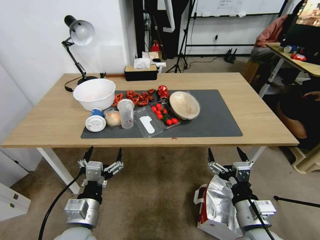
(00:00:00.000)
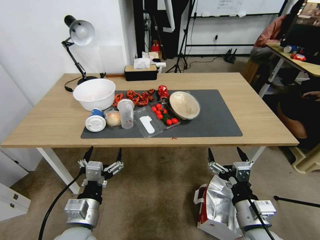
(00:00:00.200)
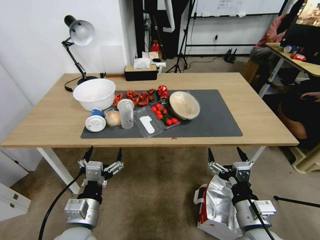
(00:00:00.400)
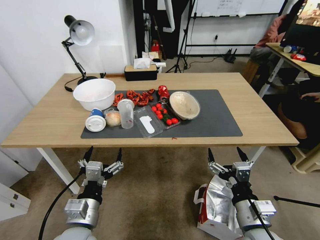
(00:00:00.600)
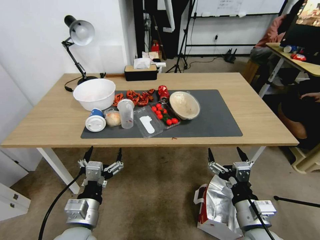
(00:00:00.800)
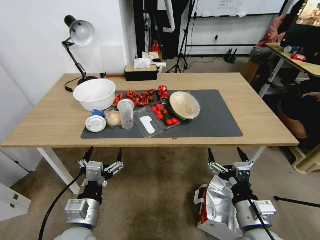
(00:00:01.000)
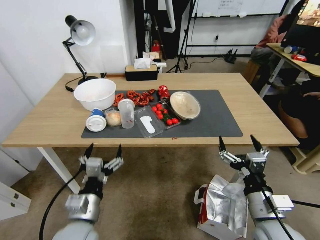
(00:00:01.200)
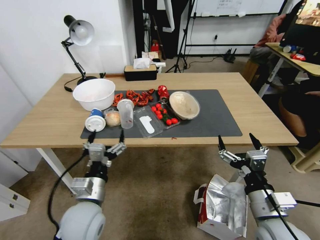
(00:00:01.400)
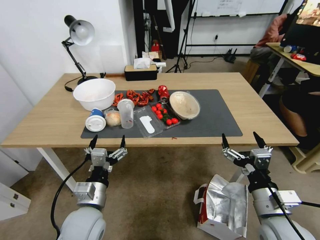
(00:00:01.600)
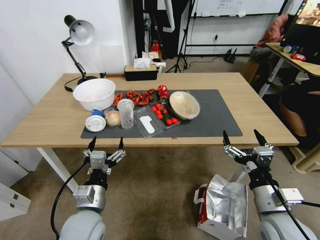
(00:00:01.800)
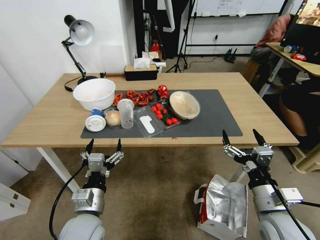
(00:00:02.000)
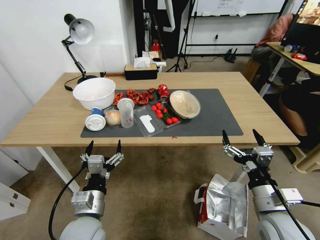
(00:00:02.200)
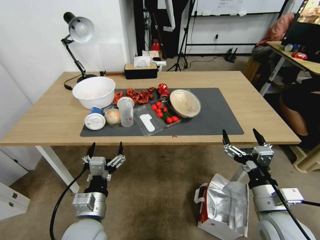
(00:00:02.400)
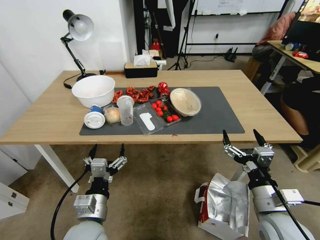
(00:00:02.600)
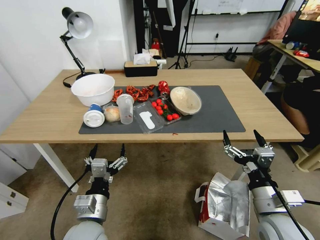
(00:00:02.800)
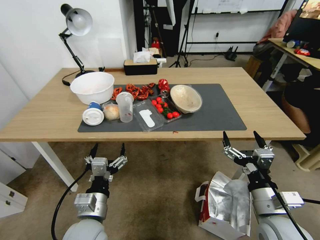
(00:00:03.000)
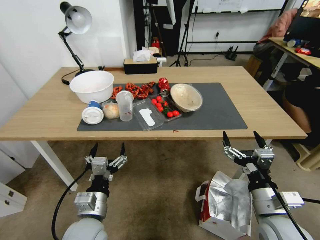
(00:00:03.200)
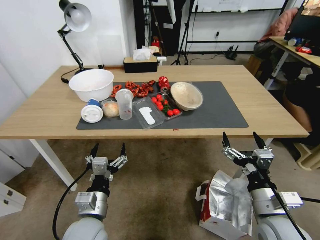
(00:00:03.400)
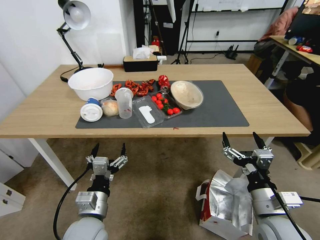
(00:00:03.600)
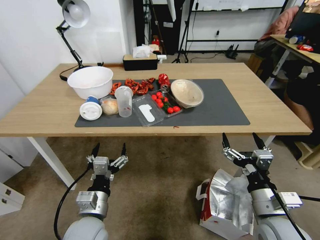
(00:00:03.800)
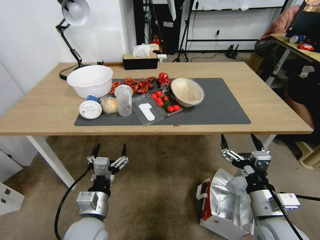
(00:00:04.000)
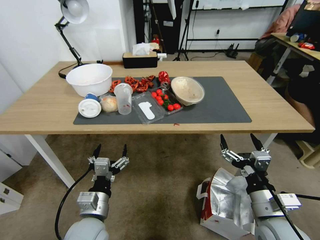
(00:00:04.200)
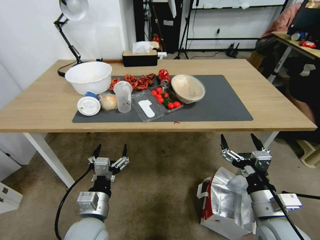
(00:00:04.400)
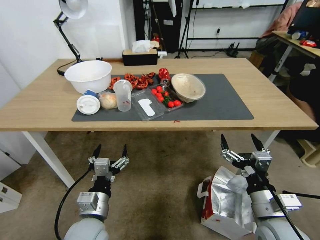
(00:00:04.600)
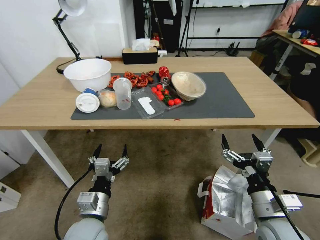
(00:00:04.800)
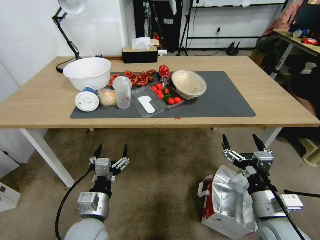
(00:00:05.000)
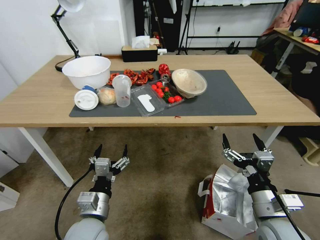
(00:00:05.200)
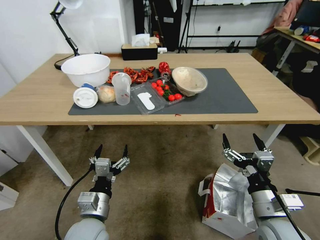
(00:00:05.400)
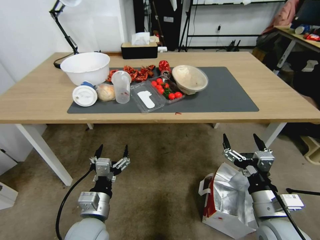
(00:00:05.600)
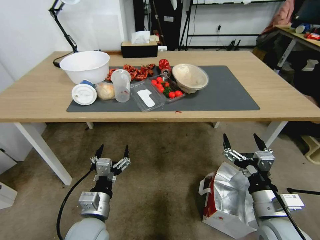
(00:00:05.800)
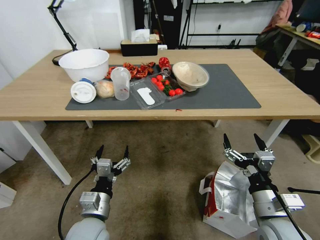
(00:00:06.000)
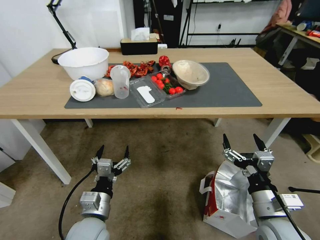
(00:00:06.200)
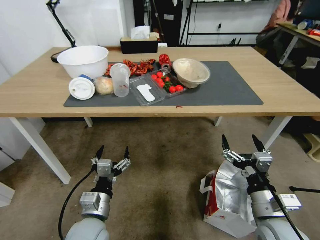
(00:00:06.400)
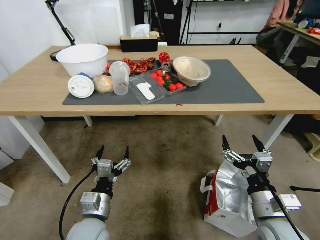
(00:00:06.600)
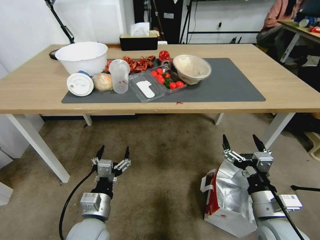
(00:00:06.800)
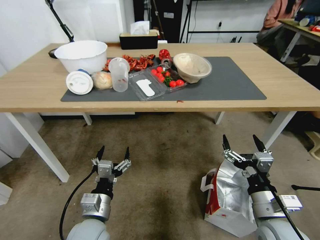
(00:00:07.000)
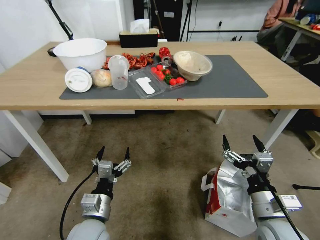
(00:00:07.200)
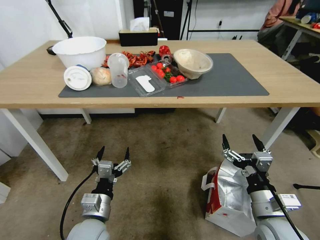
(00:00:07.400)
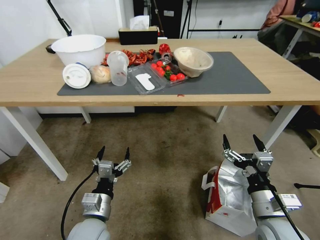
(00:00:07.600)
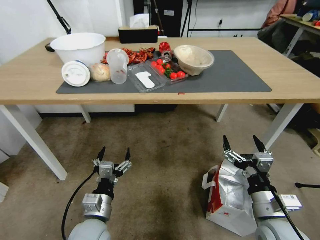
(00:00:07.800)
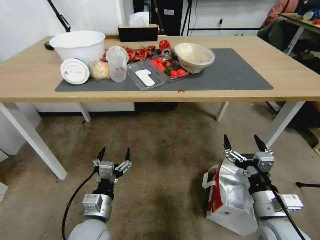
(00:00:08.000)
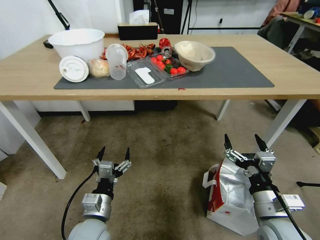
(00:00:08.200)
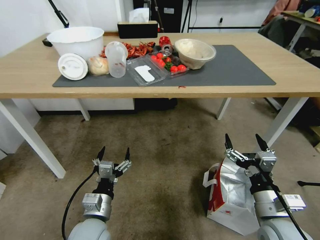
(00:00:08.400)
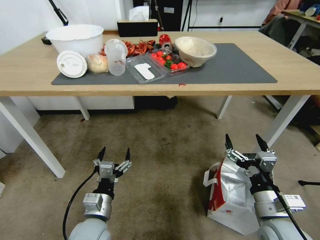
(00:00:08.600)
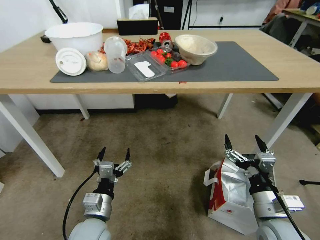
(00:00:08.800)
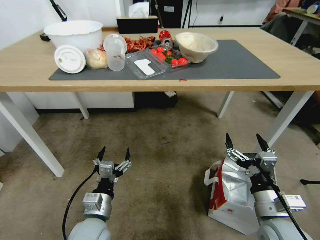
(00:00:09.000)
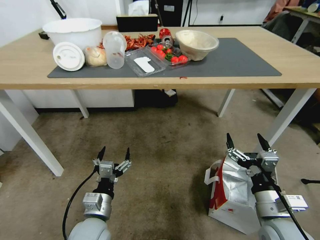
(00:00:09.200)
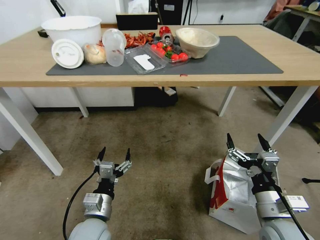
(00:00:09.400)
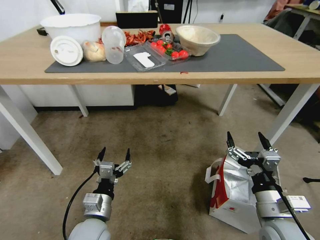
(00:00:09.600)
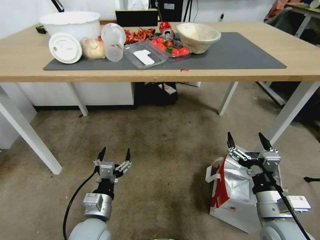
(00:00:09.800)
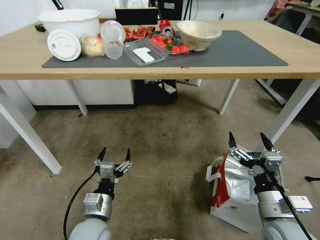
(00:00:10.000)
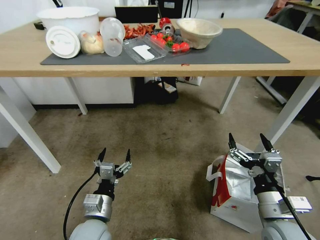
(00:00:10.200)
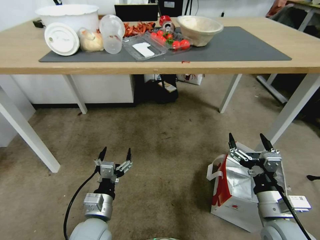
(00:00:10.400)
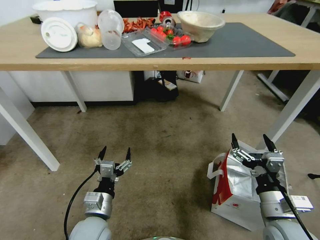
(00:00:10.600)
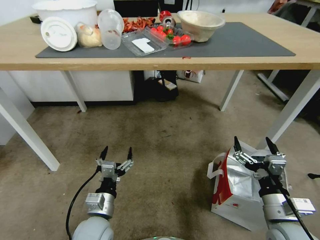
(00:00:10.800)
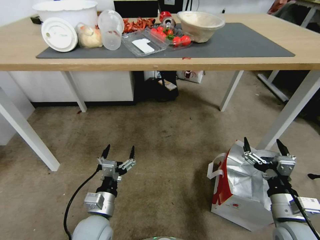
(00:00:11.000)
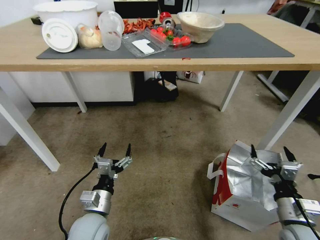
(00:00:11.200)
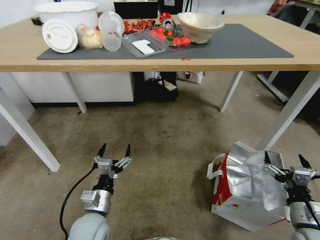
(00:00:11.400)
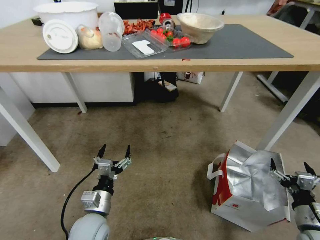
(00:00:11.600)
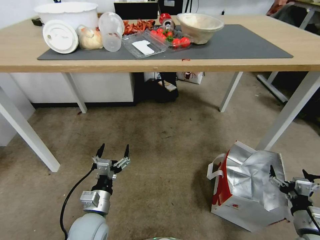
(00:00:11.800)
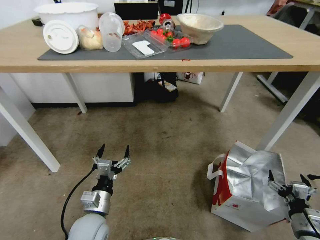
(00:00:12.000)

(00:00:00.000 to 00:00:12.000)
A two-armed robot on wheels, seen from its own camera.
Task of the whole recording: Pick up the food delivery bag from the floor and place it on the table.
00:00:10.400 - 00:00:12.000: The right gripper is displaced to the right and downward by some 20 cm.

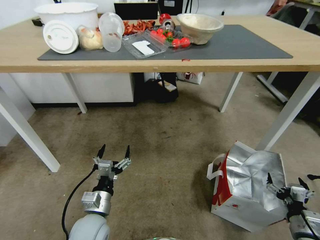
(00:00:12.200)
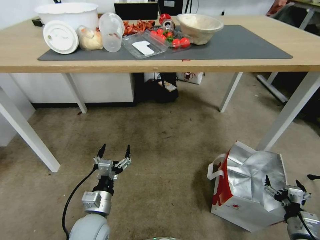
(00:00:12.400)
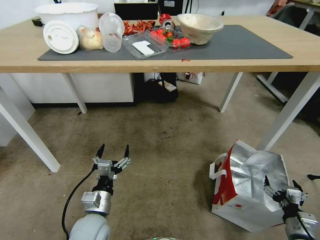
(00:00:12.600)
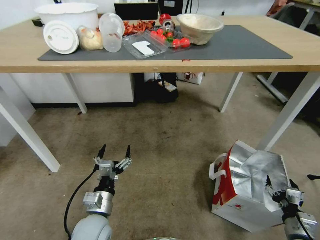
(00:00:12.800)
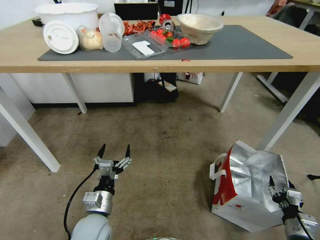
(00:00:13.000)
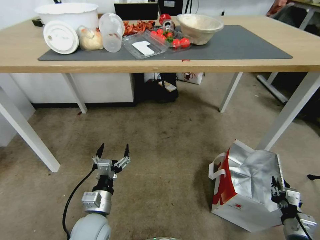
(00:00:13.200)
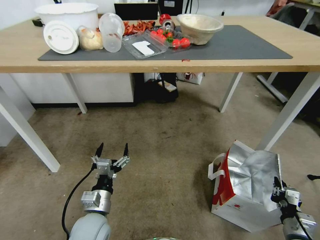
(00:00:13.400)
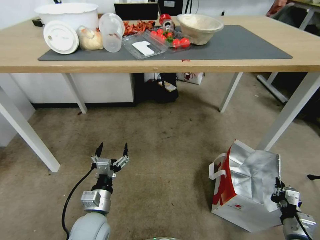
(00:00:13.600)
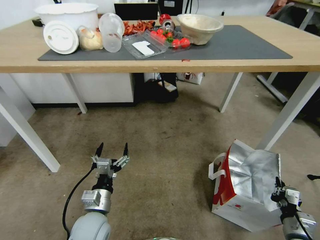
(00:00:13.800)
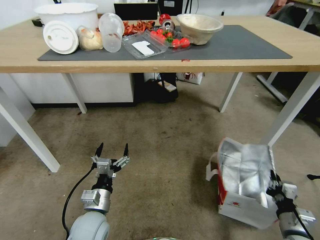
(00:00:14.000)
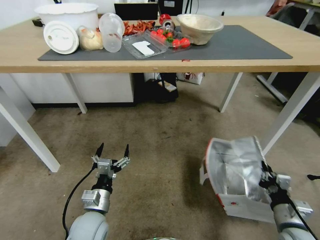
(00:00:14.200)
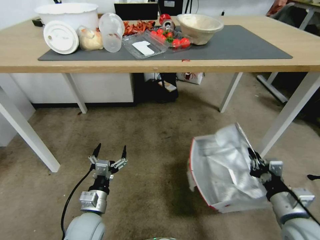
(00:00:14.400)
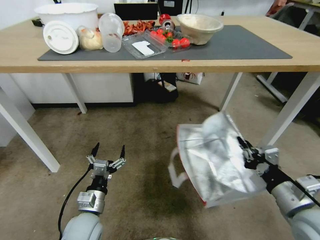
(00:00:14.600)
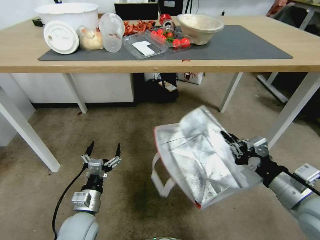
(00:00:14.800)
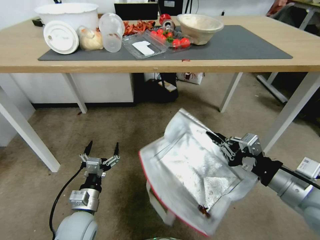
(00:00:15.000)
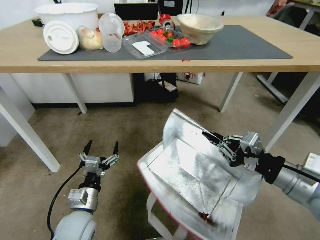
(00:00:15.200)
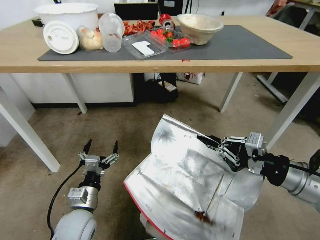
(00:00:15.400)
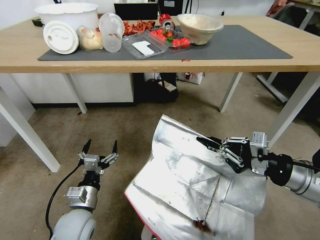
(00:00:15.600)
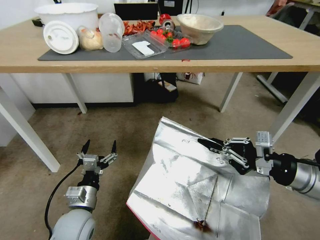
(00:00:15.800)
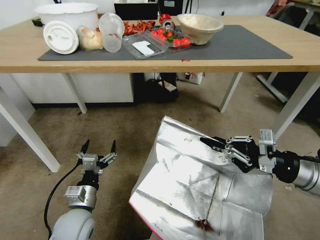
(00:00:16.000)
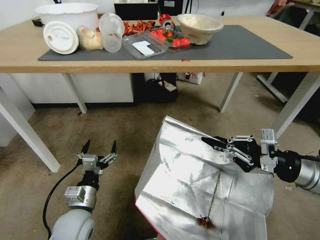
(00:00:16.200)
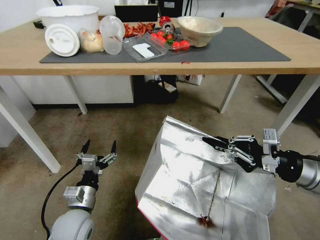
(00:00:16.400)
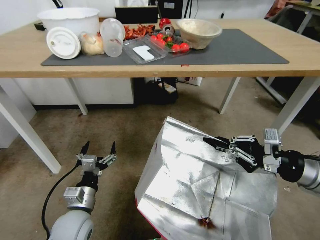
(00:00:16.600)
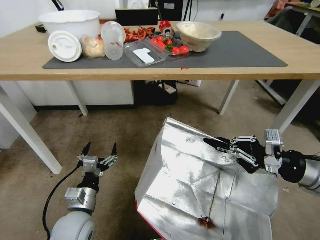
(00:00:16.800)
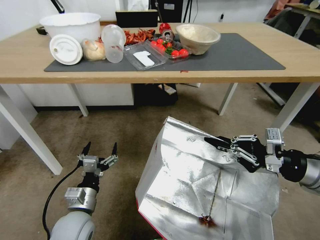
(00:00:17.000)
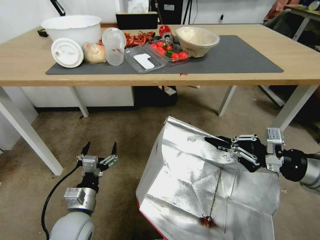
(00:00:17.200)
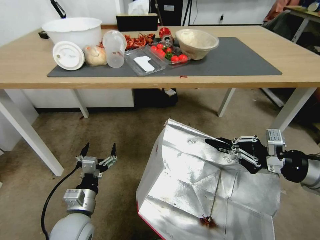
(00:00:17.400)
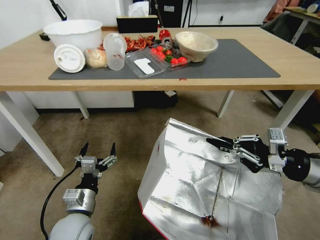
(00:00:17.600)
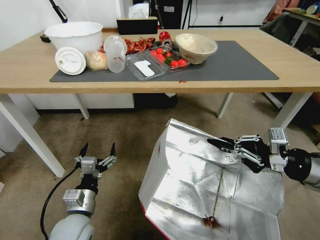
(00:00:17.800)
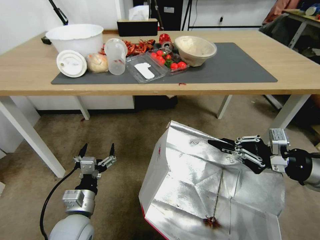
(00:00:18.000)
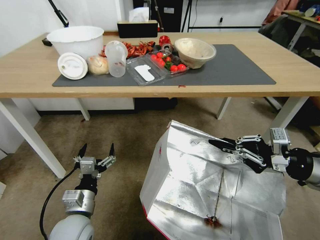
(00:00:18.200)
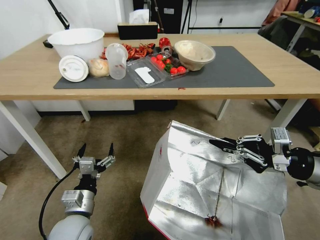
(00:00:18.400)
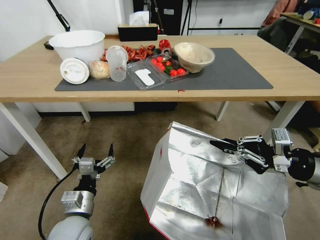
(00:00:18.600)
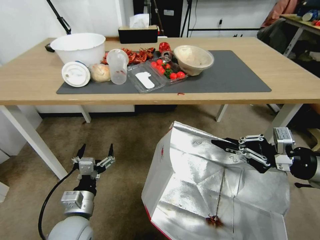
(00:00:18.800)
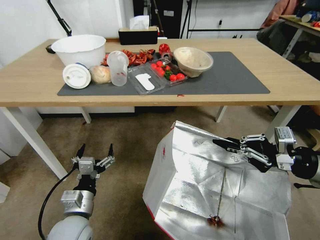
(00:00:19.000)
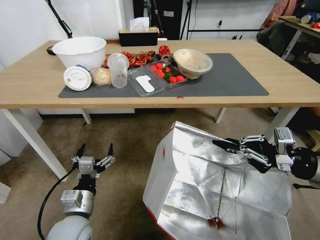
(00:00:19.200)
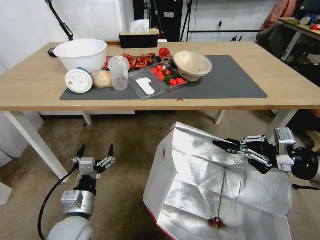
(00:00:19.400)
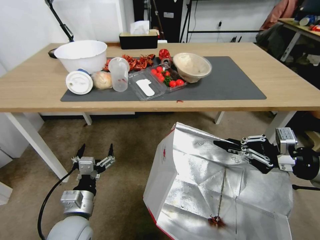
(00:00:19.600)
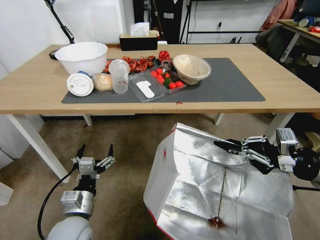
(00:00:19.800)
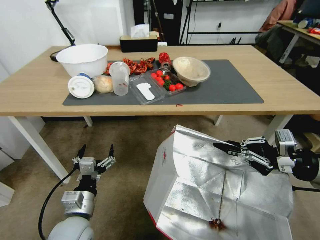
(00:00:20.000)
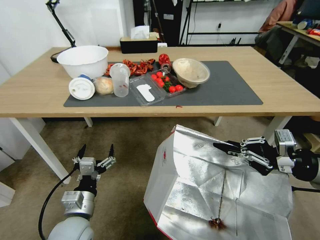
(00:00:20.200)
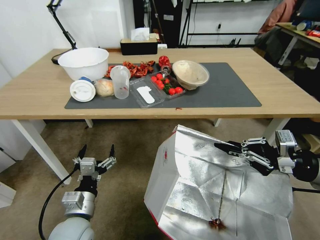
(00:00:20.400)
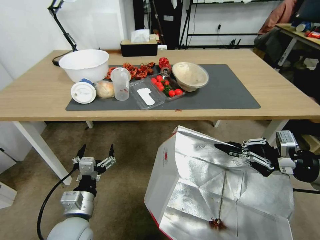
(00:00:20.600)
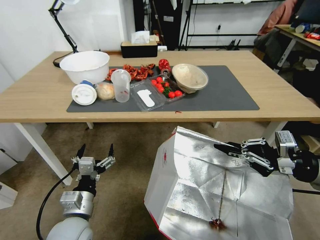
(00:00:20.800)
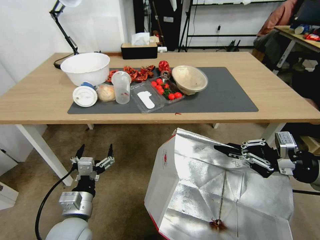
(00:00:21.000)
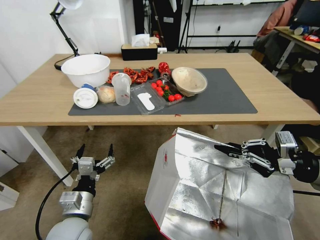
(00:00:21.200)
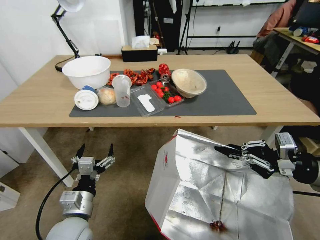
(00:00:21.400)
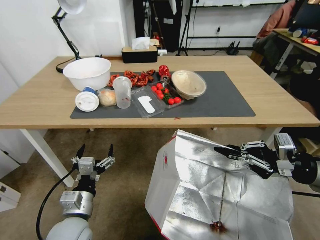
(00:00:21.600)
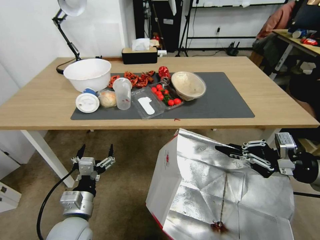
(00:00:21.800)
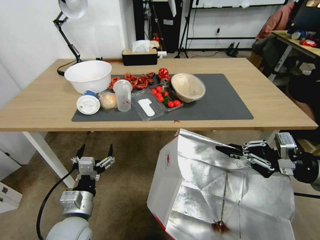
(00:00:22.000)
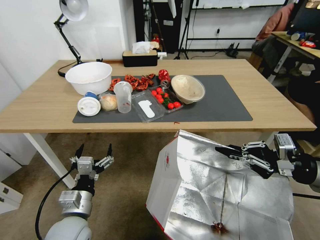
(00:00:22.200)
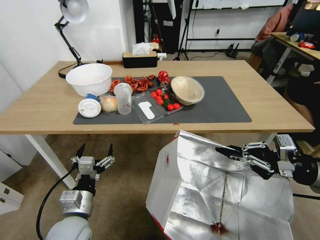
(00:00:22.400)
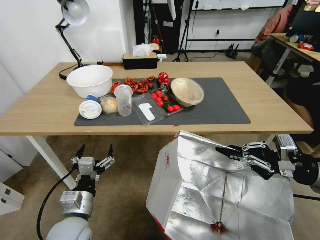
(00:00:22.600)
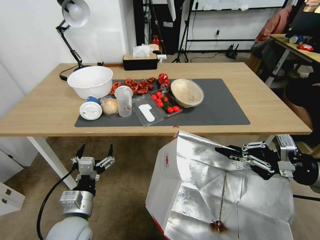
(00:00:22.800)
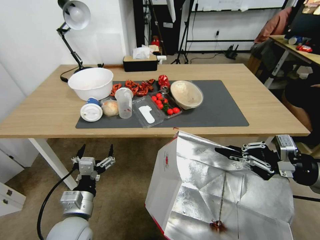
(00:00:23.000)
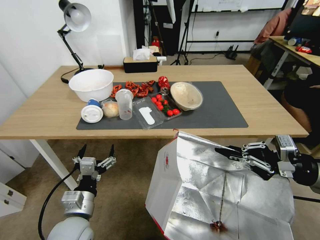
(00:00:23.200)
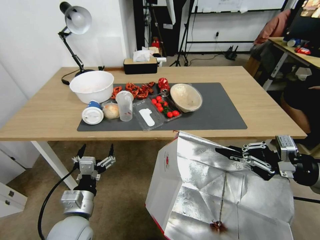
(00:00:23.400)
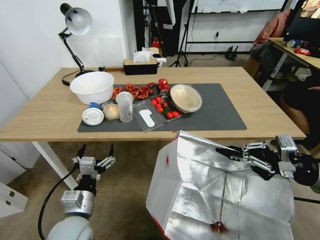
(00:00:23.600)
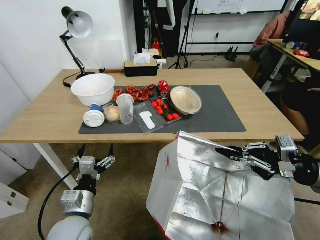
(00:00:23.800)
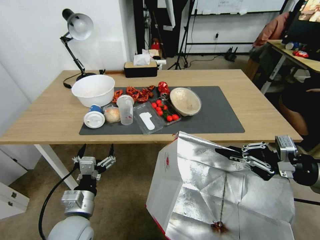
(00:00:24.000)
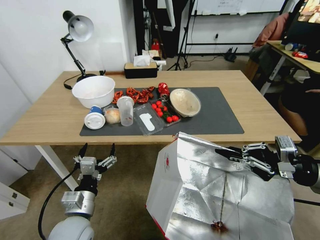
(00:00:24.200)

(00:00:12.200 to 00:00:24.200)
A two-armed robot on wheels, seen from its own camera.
Task of the whole recording: Pick up the food delivery bag from the floor and place it on the table.
00:00:12.200 - 00:00:13.800: The right gripper closes.
00:00:13.800 - 00:00:15.200: The right gripper heads upward, covering some 30 cm.
00:00:15.200 - 00:00:16.600: The right gripper ends up roughly 5 cm from where it was.
